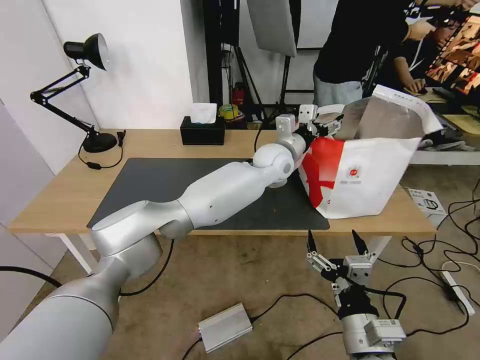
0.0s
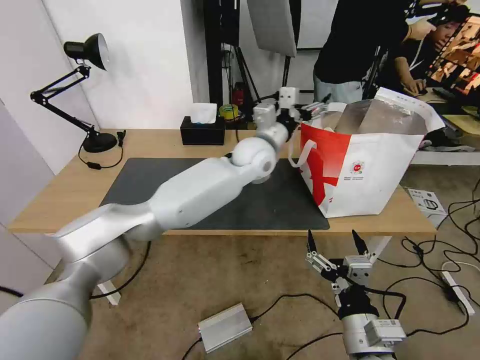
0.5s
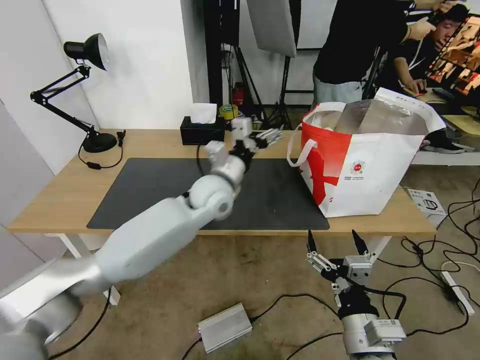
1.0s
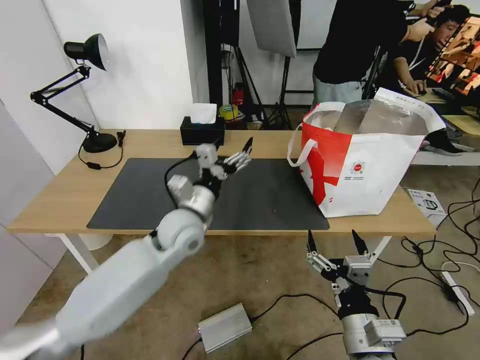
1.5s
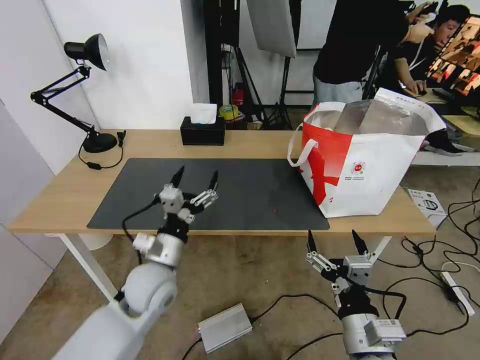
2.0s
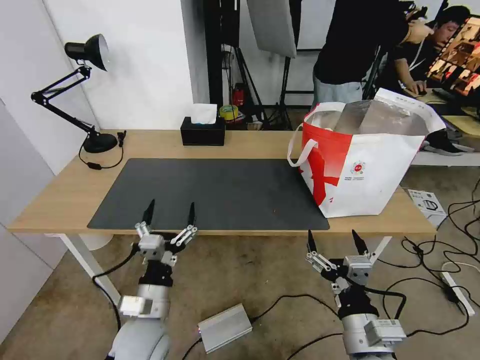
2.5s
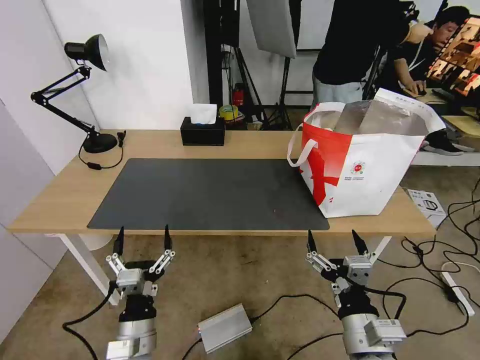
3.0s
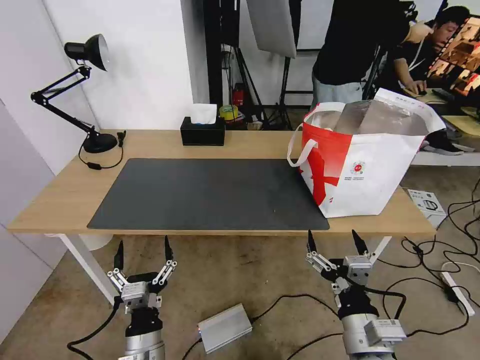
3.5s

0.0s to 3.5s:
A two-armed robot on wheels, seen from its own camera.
Task of the whole recording: Pick up the trash from the table and place it into the takeout bag.
0.0s to 2.0s: The left gripper heads to the left, backward and downward, covering some 40 cm.
2.0s to 3.5s: The left gripper heads backward and downward, covering some 20 cm.
